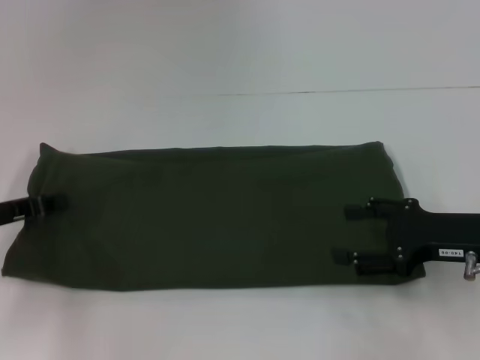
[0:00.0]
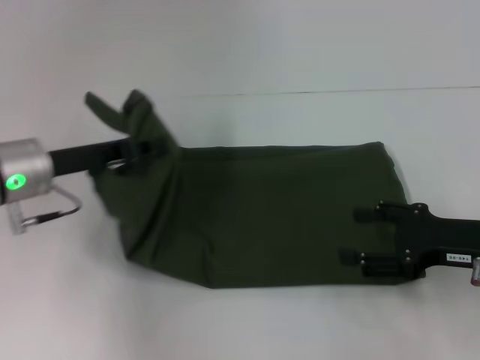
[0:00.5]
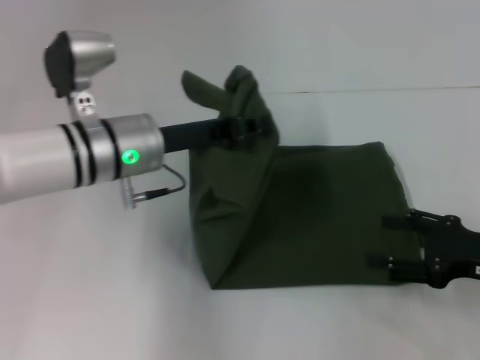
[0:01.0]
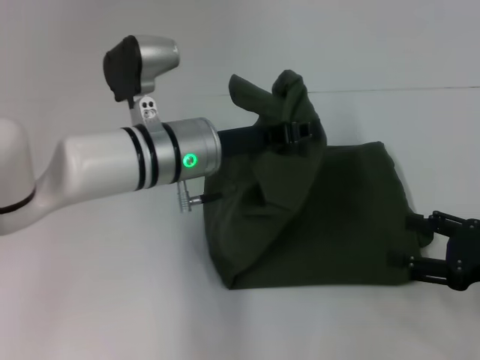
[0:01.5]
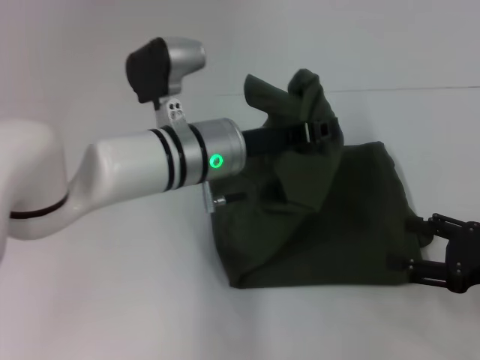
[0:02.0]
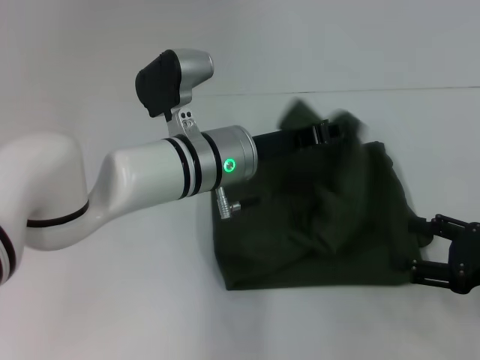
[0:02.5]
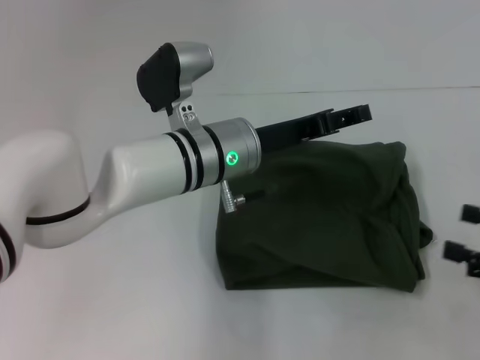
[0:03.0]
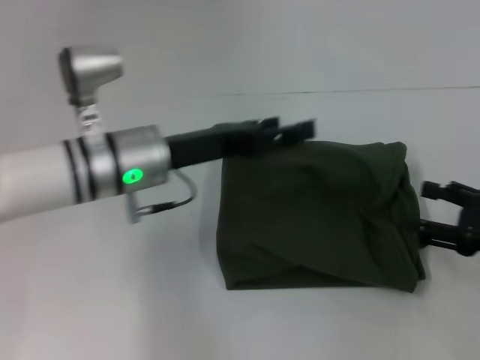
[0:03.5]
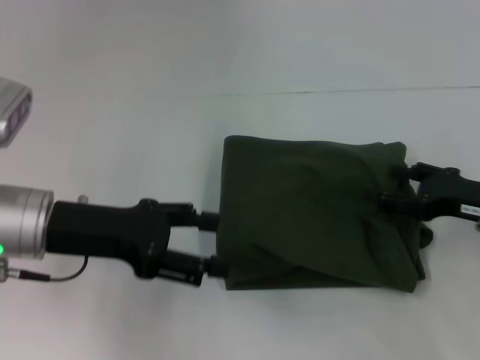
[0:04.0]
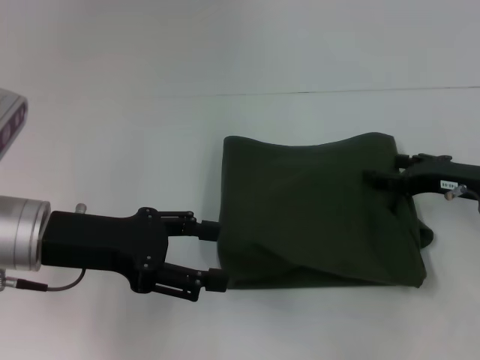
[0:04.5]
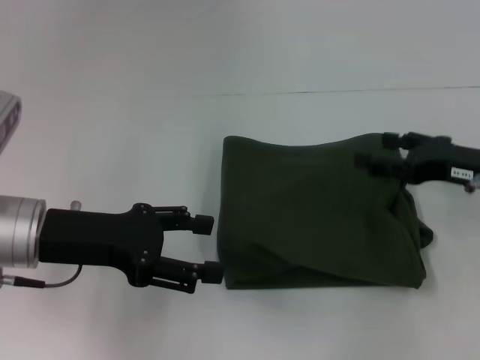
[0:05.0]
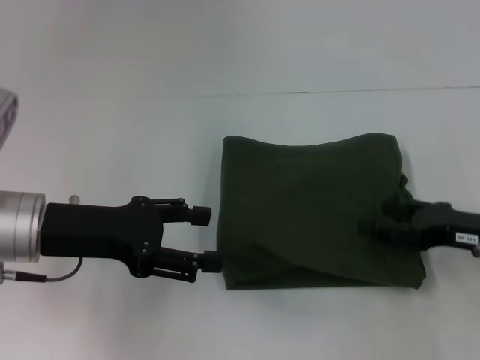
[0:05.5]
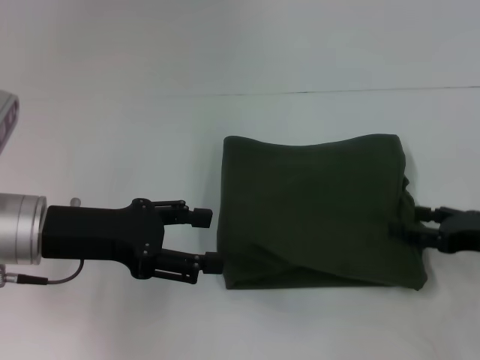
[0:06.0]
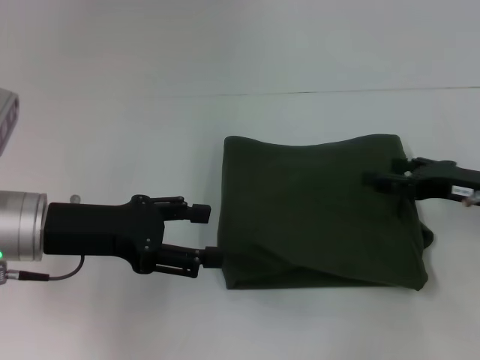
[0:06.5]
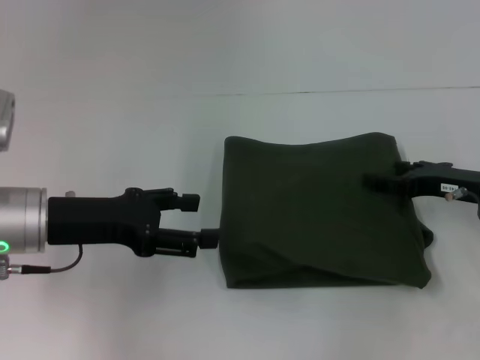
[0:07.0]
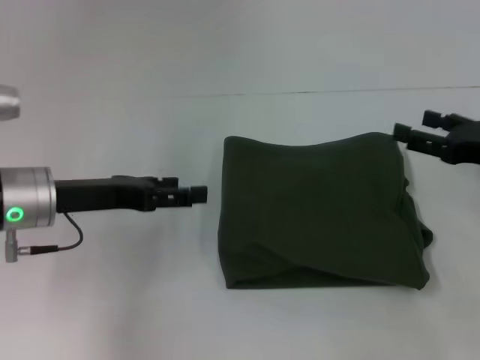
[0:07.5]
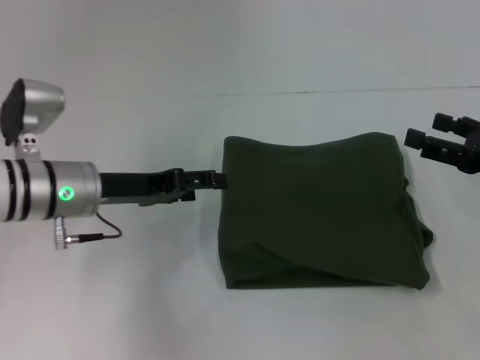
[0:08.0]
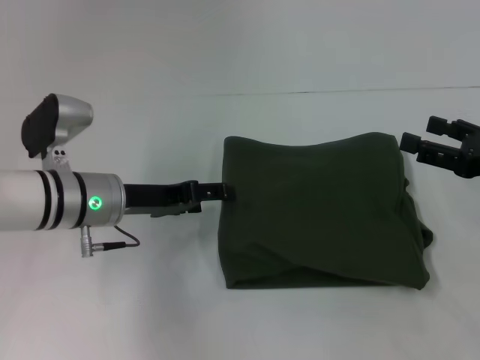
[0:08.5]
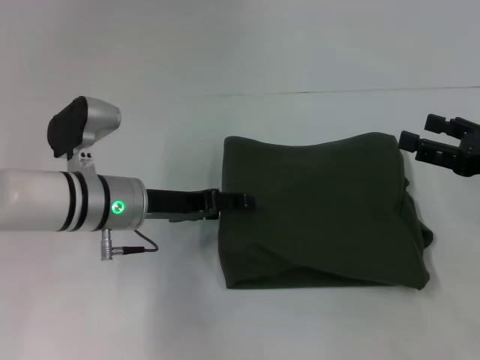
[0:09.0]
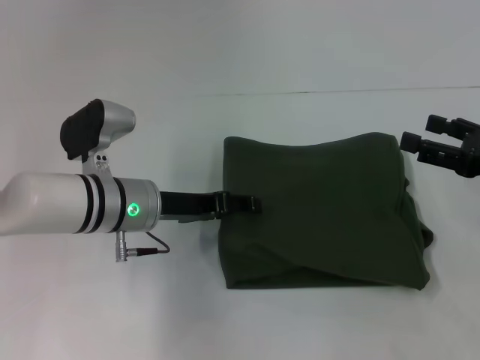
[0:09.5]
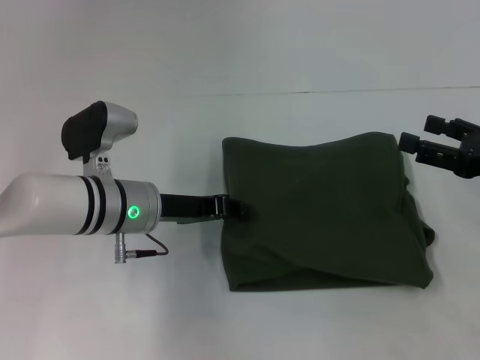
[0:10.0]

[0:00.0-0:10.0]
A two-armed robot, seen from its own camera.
Step, 0:00.0 to 0:02.5: Fold the clothes with your left hand.
0:00.0 to 0:02.0: The right gripper changes place by some 5 cm; the left gripper moves to the right, roughly 25 cm.
0:02.0 to 0:04.0: The right gripper travels forward by about 5 cm. Meanwhile the left gripper heads to the left and backward, covering about 15 cm, and opens its fingers.
0:04.0 to 0:06.0: The grippers move only a little.
0:06.0 to 0:08.0: The right gripper heads upward, covering approximately 5 cm; the left gripper heads forward, covering approximately 5 cm.
0:08.0 to 0:10.0: The left gripper travels to the right by about 5 cm, and closes up.

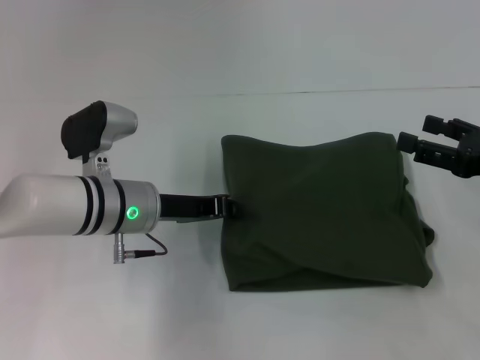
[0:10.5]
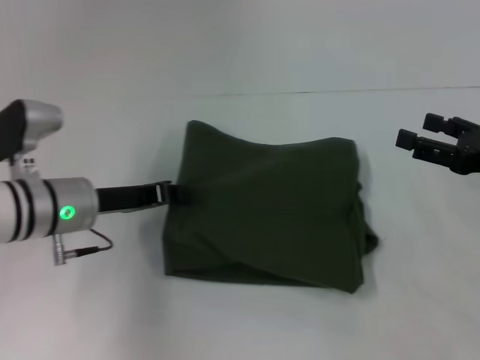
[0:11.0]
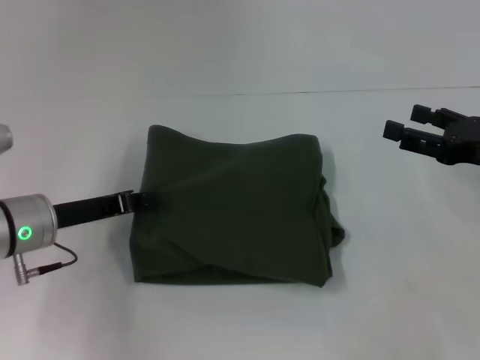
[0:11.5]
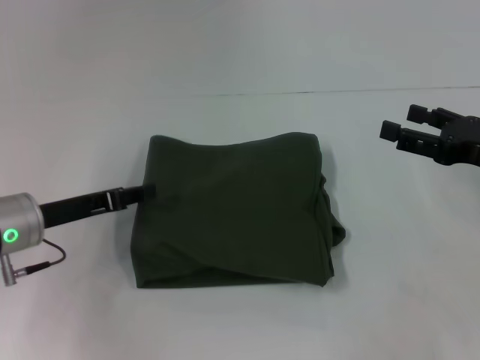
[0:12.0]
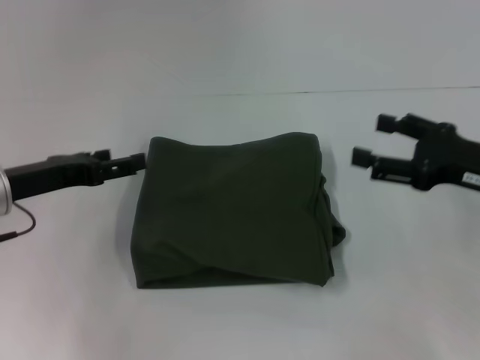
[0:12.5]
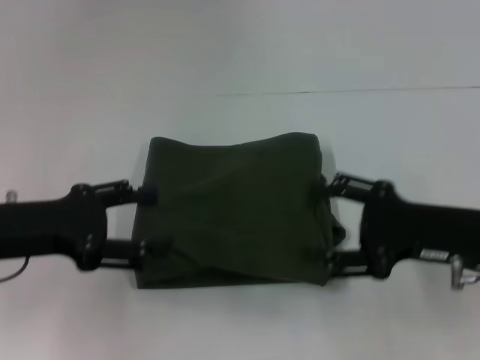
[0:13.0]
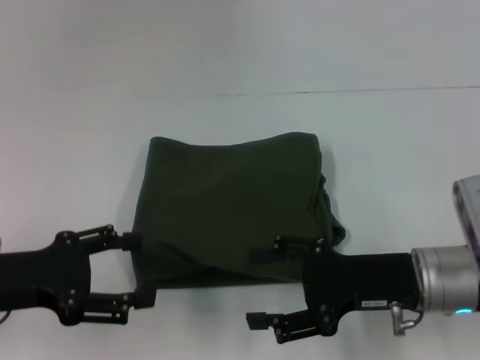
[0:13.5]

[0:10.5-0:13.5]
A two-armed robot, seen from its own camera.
0:10.5 to 0:12.0: The left gripper goes approximately 10 cm to the left.
0:12.0 to 0:13.5: The right gripper heads to the left, covering approximately 10 cm, while the left gripper moves backward, roughly 10 cm, and opens up.

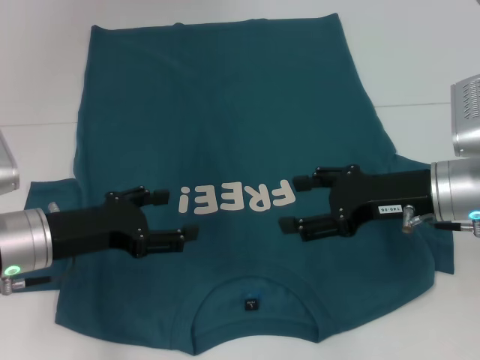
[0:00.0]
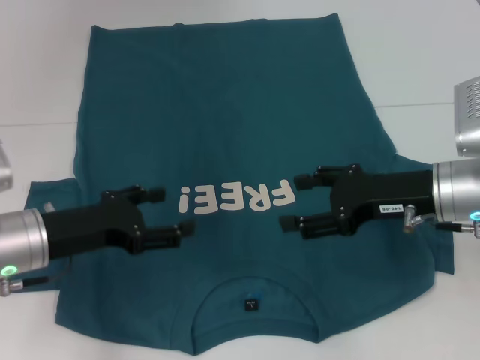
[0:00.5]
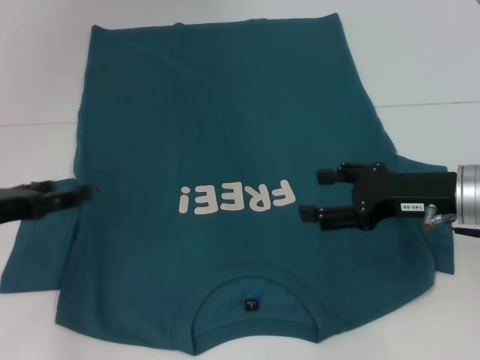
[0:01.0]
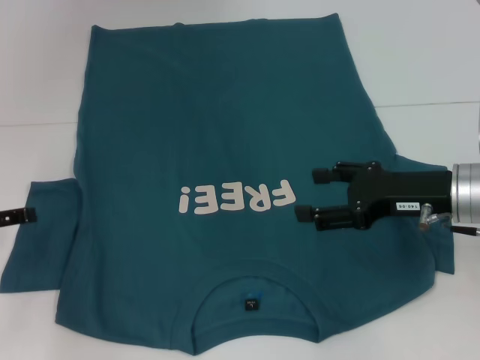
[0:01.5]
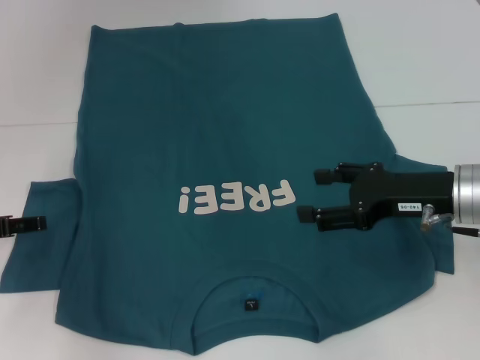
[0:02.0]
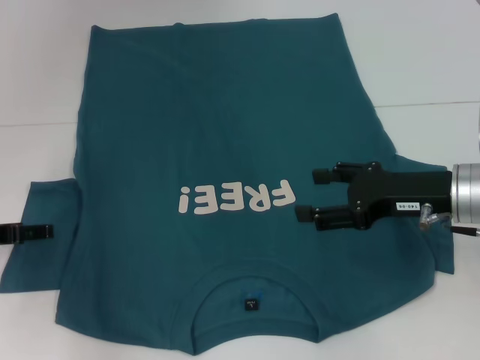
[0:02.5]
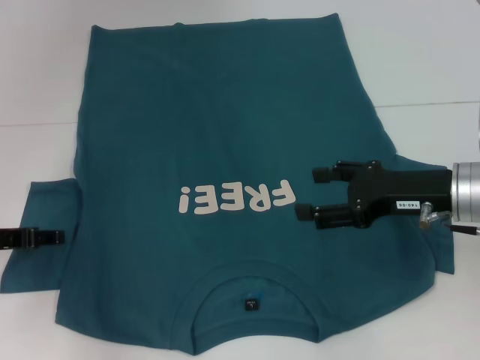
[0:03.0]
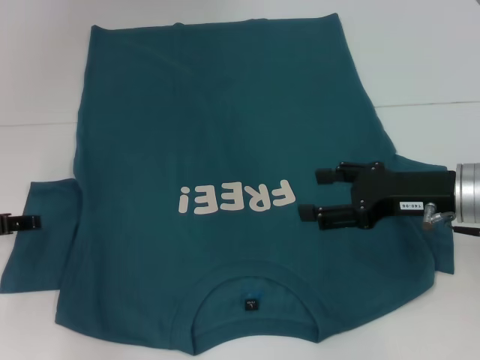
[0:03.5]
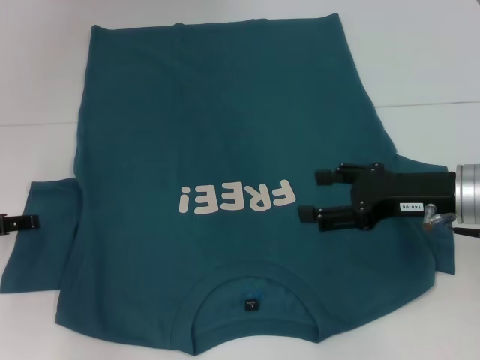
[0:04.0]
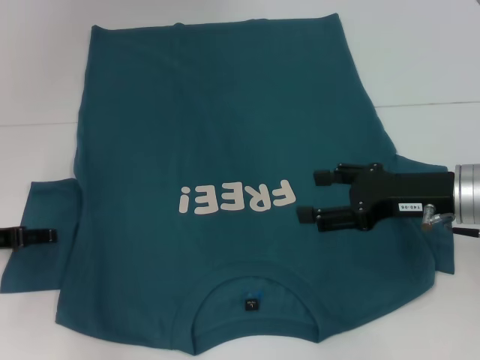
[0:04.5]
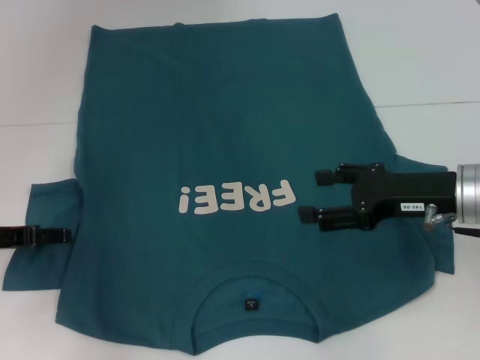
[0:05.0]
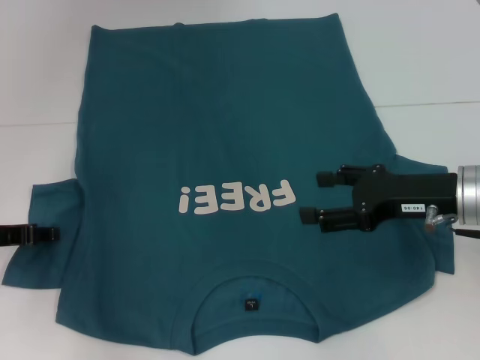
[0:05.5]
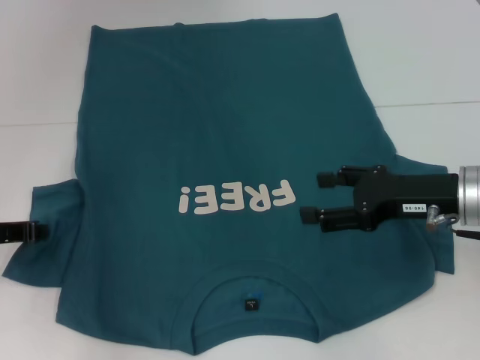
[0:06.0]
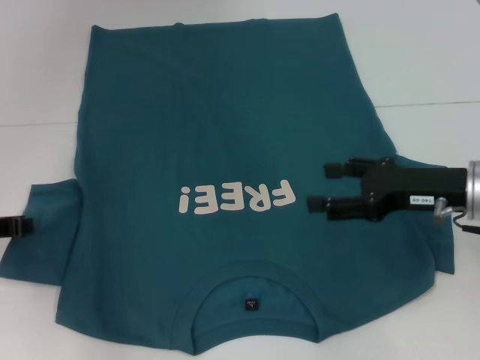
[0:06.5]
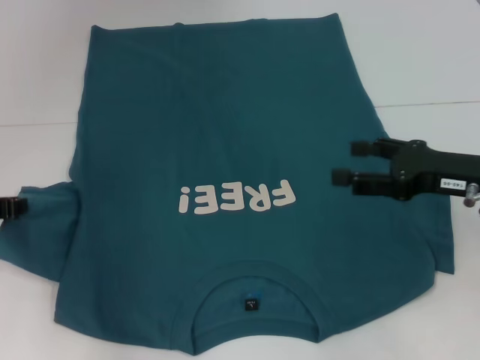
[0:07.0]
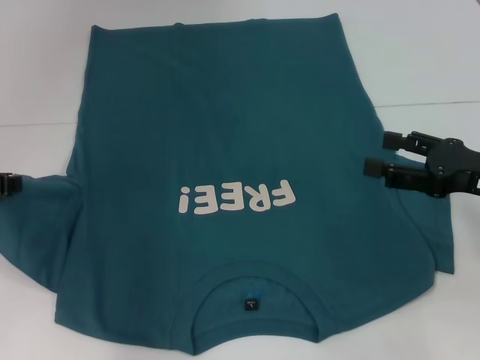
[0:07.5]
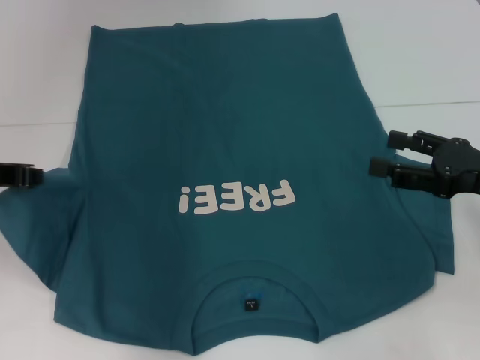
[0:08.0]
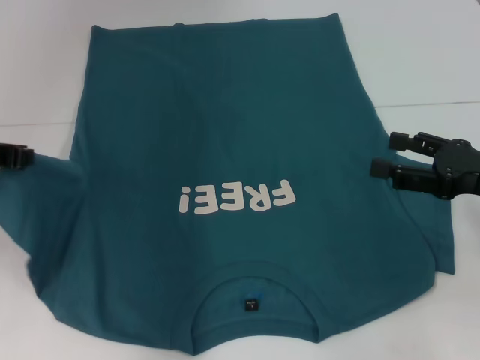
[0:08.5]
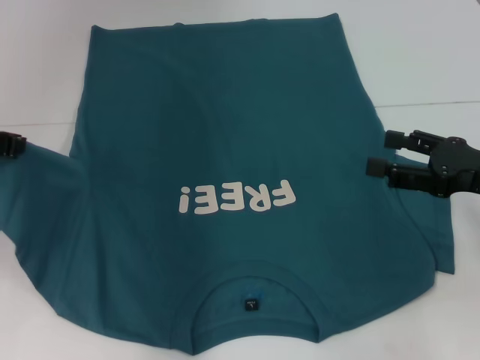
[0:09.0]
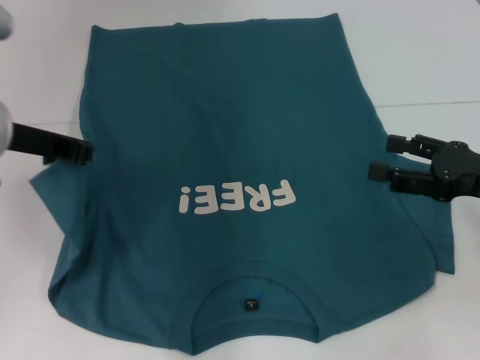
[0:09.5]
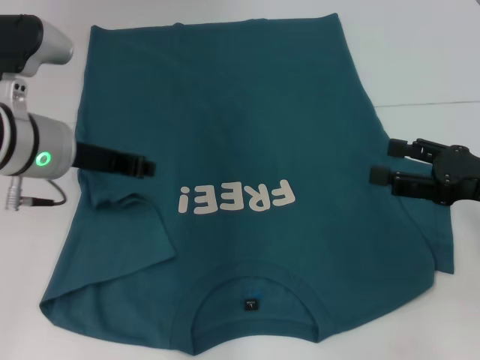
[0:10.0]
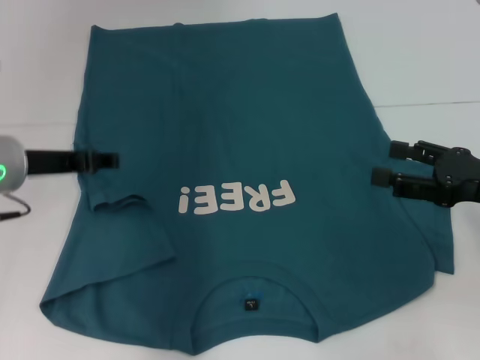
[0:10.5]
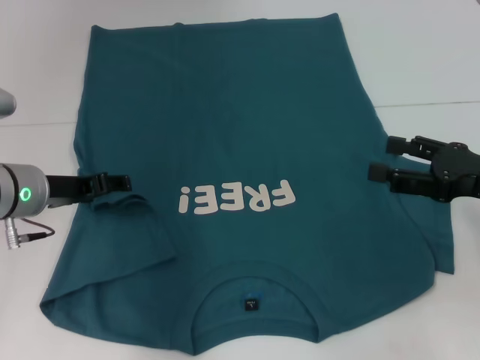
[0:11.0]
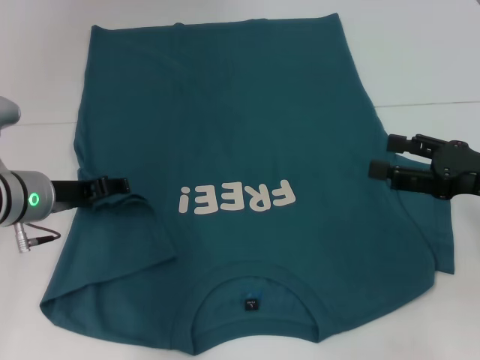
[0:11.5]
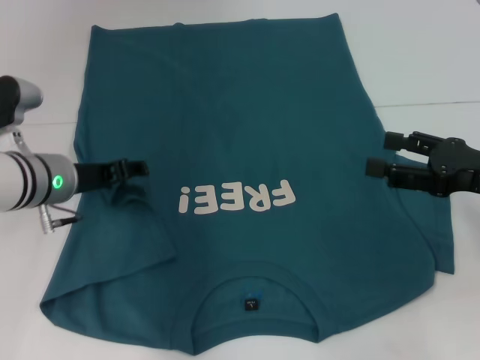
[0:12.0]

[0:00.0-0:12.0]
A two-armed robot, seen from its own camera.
0:00.0 to 0:02.0: The left gripper shifts some 10 cm to the left.
0:04.0 to 0:06.0: The left gripper closes.
0:06.0 to 0:08.0: The left gripper travels upward by some 10 cm; the right gripper shifts roughly 5 cm to the right.
0:08.0 to 0:10.0: The left gripper travels to the right by about 10 cm.
0:10.0 to 0:12.0: The left gripper is displaced downward by about 10 cm, and opens up.
